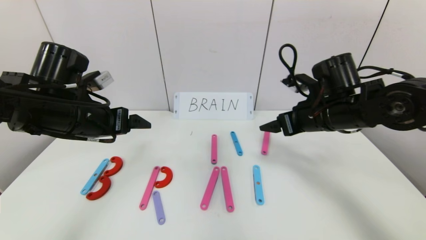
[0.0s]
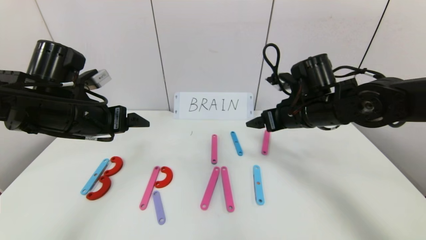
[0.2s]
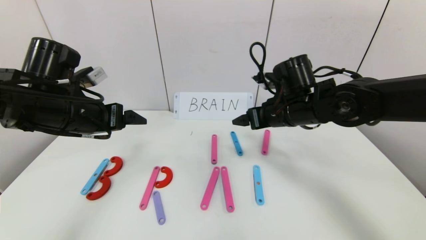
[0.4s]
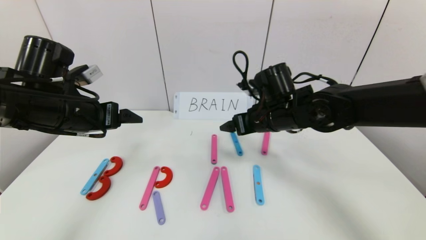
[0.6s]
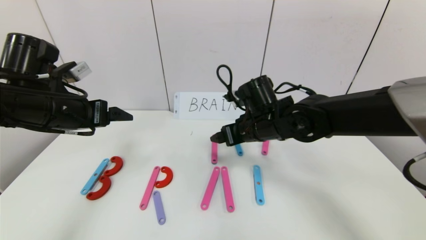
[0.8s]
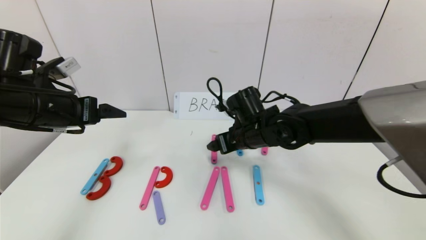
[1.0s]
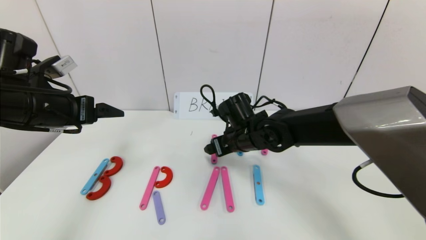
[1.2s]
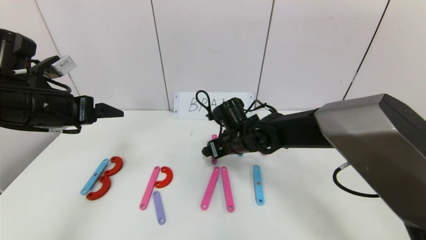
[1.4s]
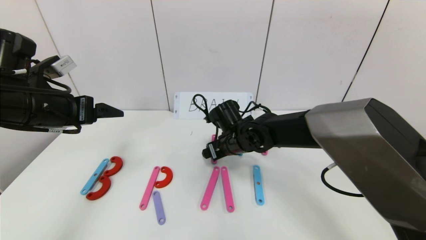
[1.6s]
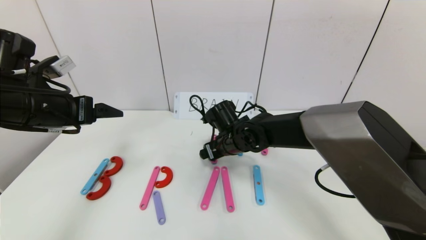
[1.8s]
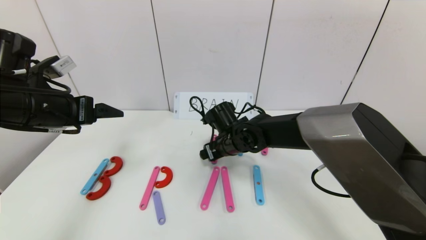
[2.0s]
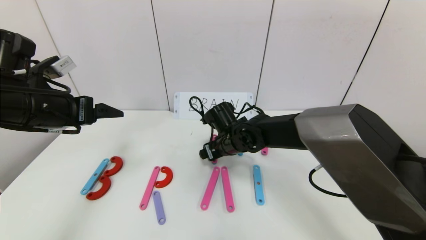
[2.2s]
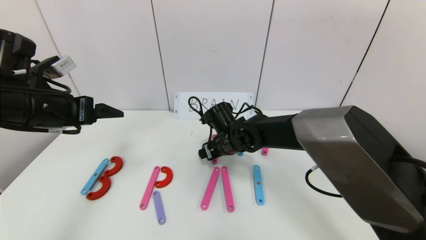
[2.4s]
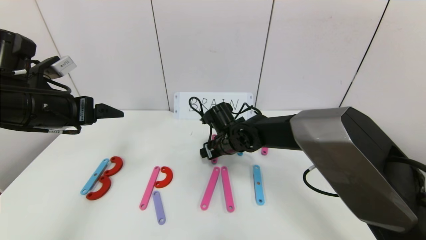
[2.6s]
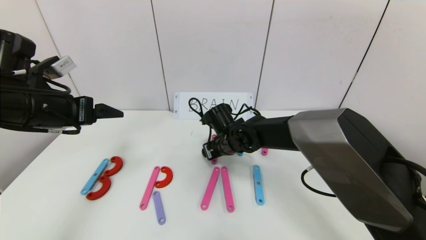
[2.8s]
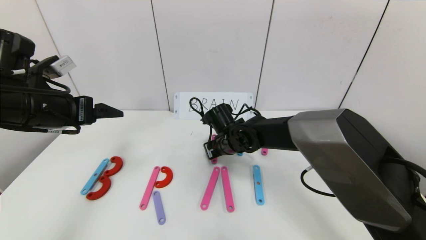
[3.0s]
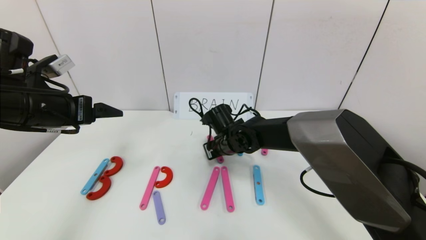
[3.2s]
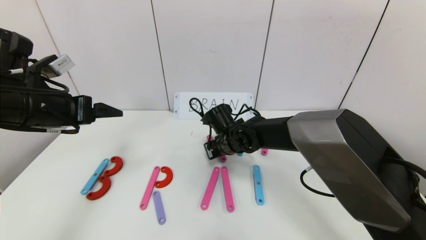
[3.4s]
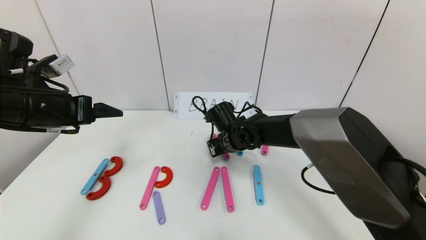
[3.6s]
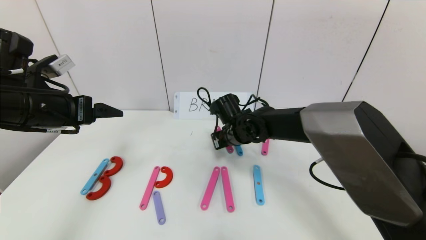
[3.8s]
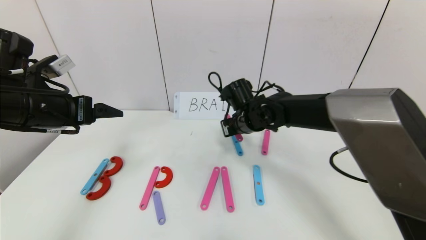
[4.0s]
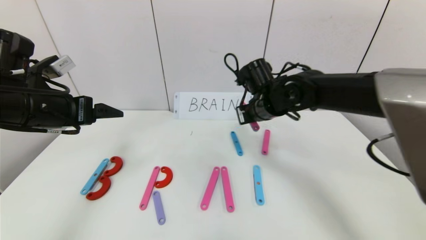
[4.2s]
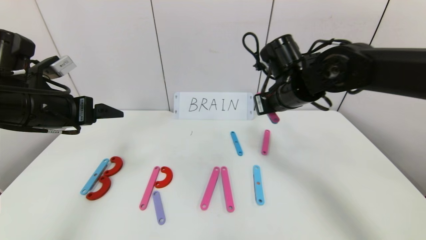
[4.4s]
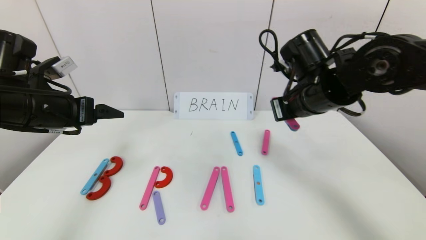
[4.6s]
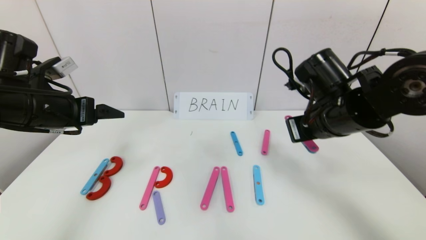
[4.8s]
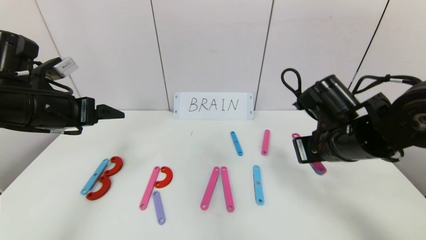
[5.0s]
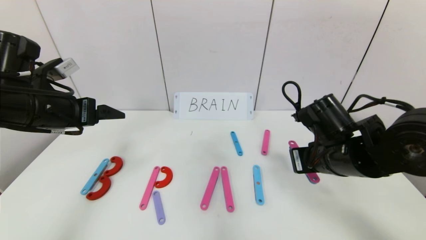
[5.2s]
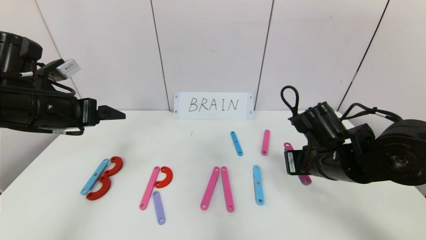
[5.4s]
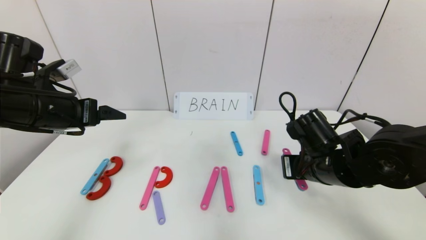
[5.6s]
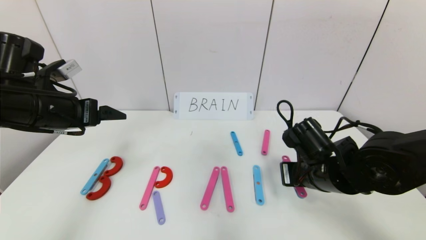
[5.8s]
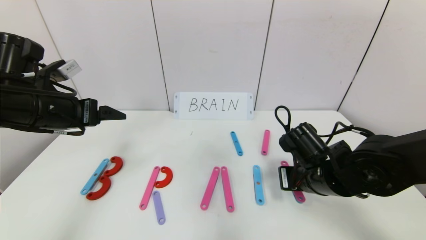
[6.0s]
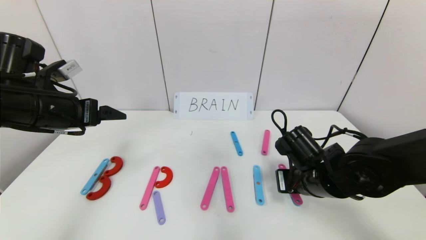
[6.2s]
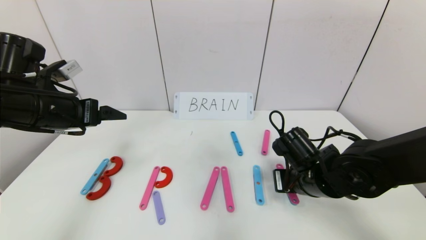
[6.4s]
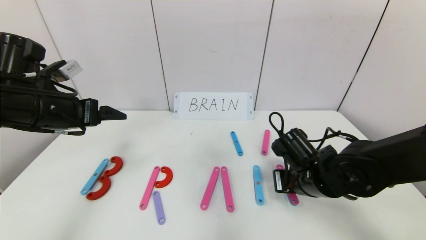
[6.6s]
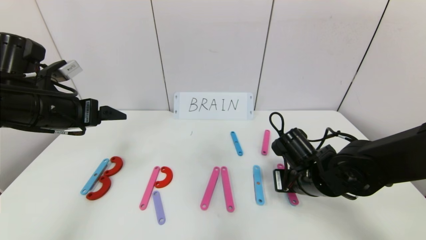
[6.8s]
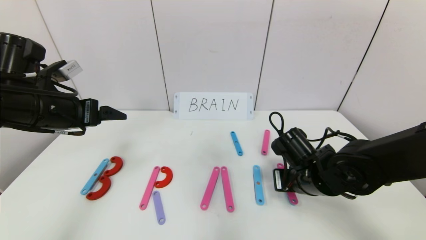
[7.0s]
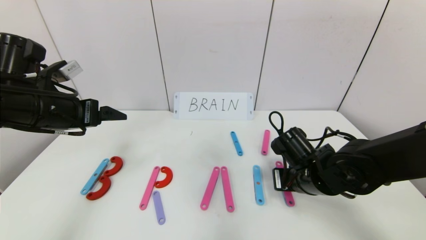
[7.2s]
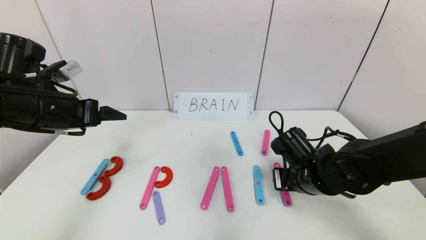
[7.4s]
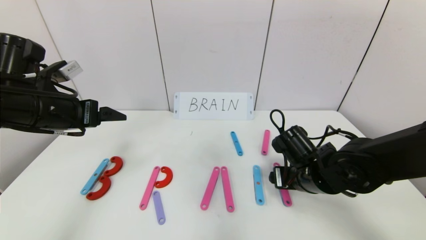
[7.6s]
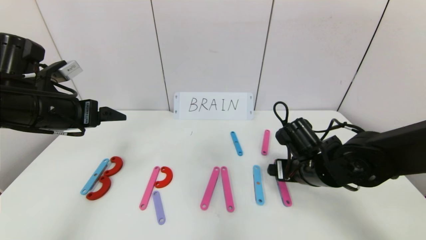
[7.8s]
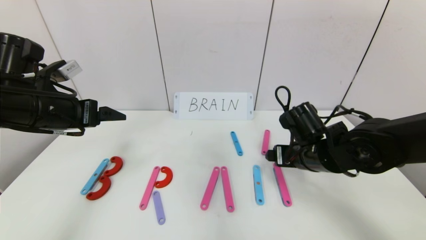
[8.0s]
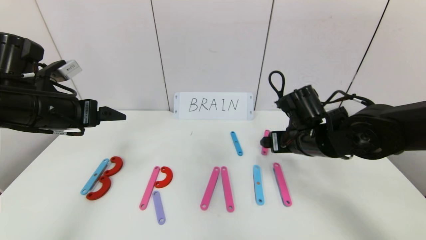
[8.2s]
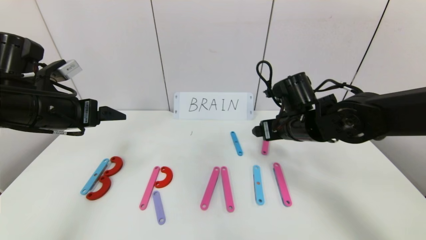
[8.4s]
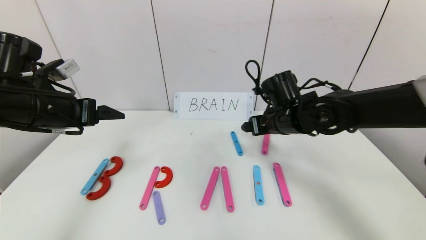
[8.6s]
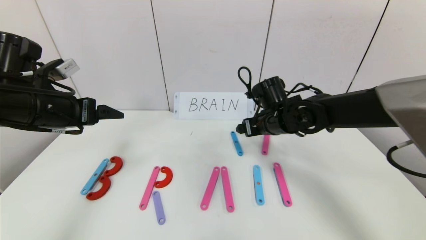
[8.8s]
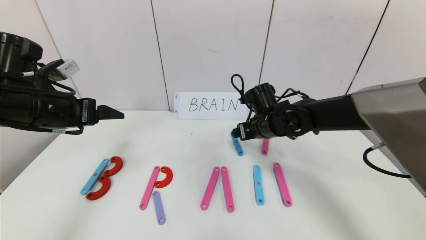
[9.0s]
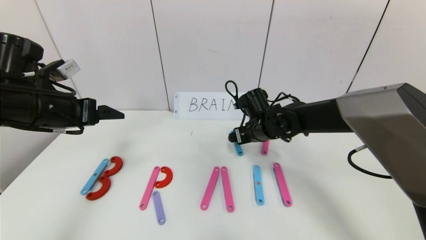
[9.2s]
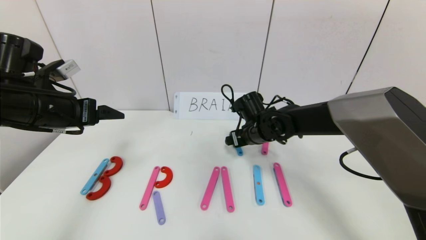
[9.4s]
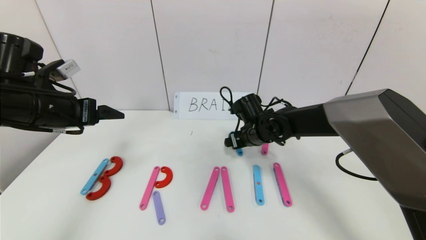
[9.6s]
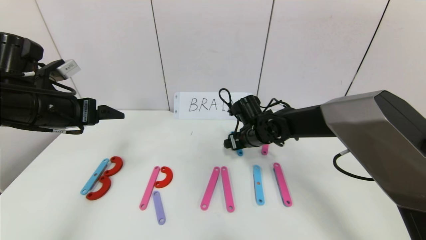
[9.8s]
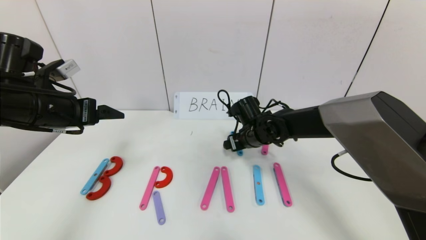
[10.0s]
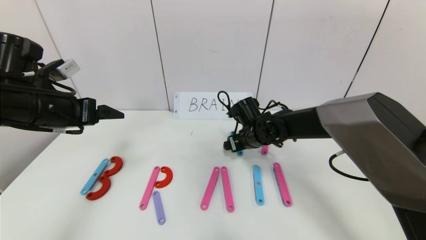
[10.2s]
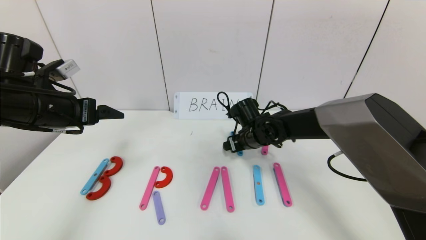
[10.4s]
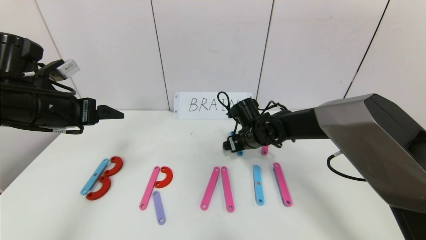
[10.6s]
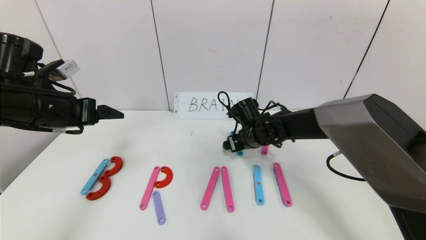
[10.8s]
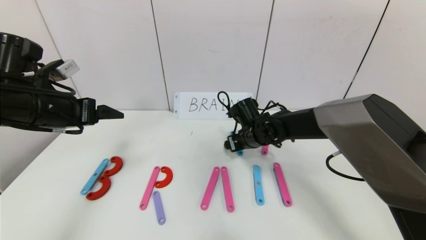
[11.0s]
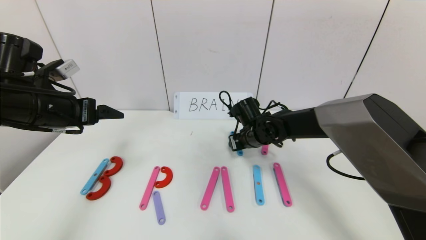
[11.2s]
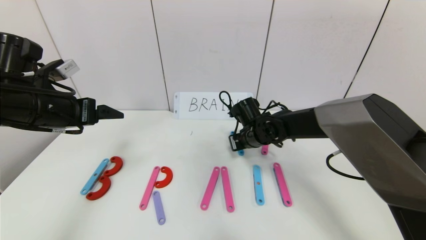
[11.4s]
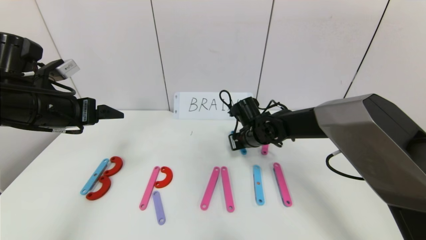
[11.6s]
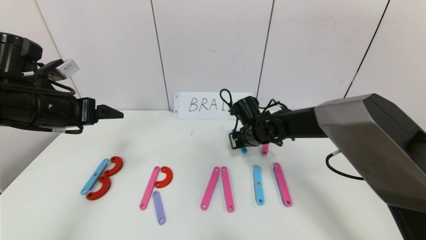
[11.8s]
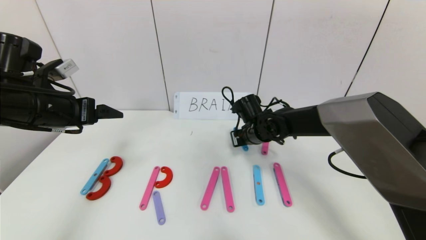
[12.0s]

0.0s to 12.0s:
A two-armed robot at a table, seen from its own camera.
Task of the whole recording: rearrange the word baai as brain.
0.0s to 1.6s: The right gripper moves to the left and downward, roughly 20 cm, while the left gripper ends up some 5 cm from where it was.
1.6s to 3.0s: The right gripper closes up.
3.0s to 4.4s: The right gripper goes some 20 cm upward and to the right, and closes its fingers.
4.4s to 6.0s: The right gripper travels downward and backward by some 15 cm.
6.0s to 7.6s: The right gripper opens up.
7.6s to 9.0s: The right gripper moves forward and to the left, some 15 cm.
9.0s to 10.4s: The right gripper changes place by roughly 5 cm.
10.4s to 12.0s: The right gripper closes.

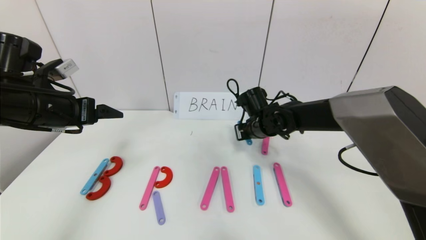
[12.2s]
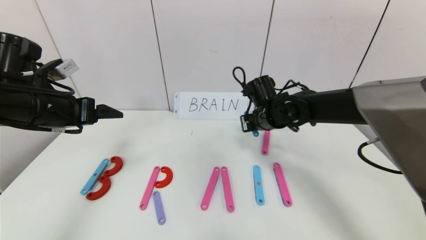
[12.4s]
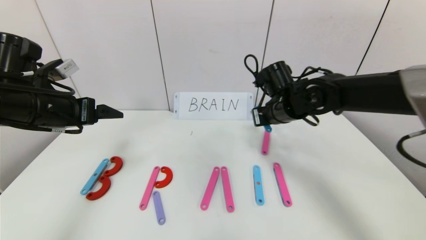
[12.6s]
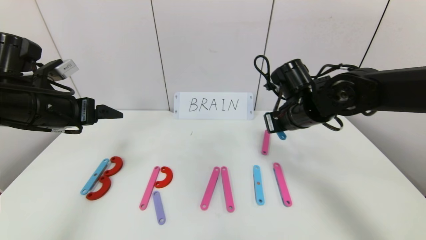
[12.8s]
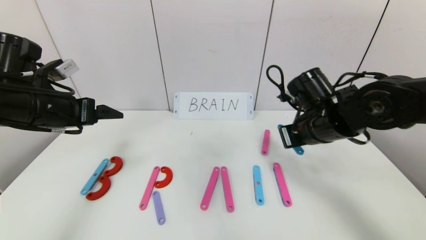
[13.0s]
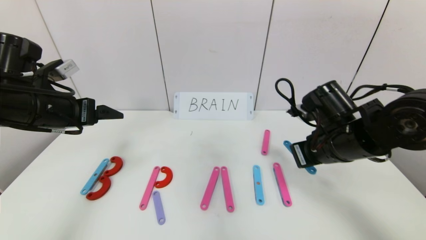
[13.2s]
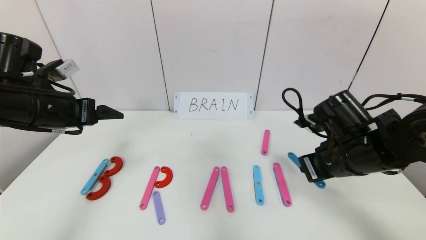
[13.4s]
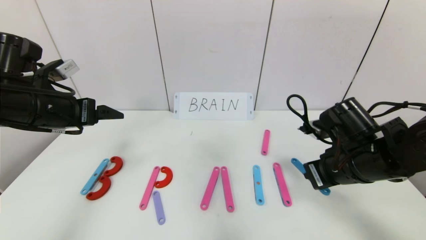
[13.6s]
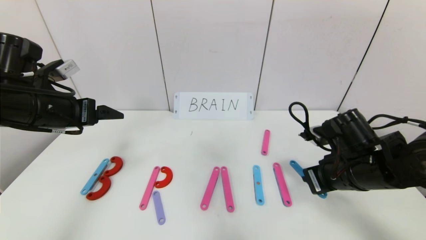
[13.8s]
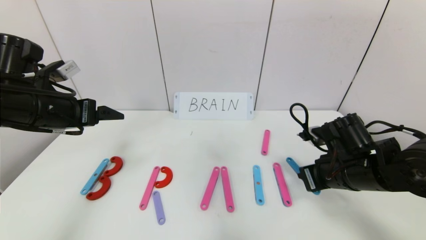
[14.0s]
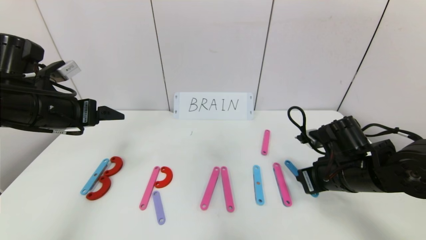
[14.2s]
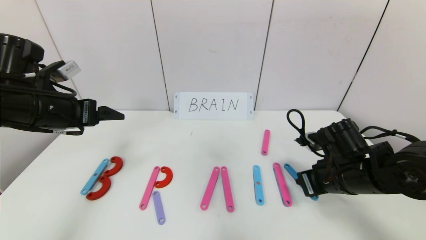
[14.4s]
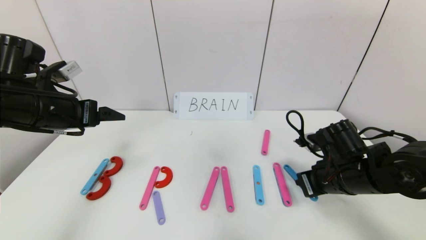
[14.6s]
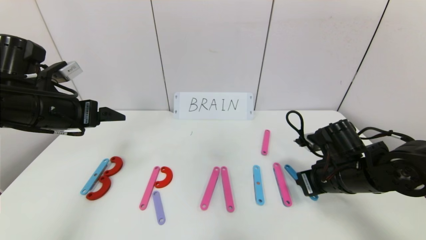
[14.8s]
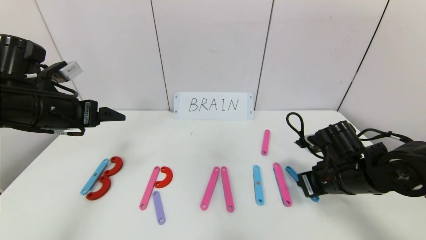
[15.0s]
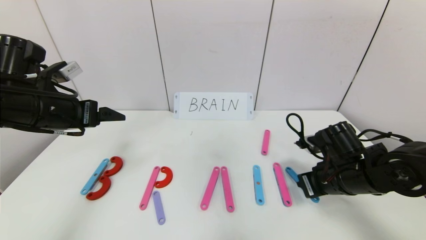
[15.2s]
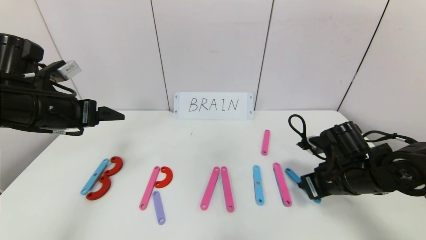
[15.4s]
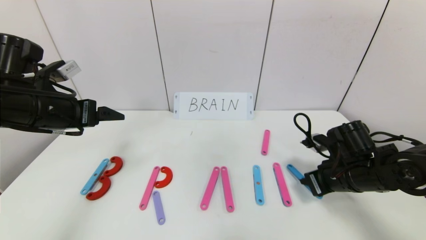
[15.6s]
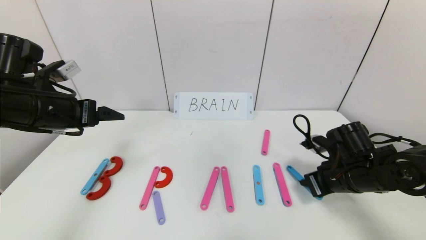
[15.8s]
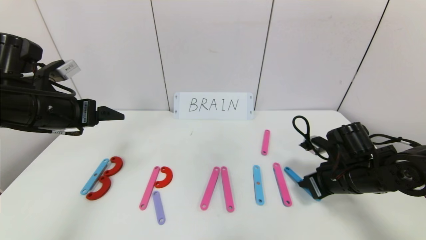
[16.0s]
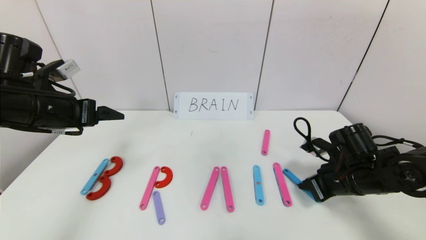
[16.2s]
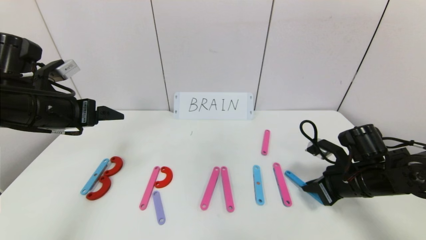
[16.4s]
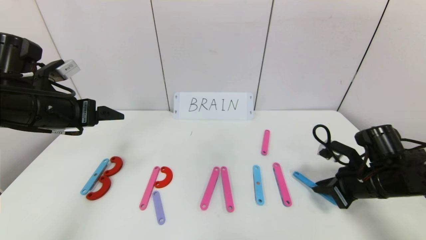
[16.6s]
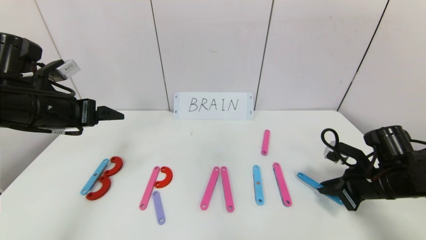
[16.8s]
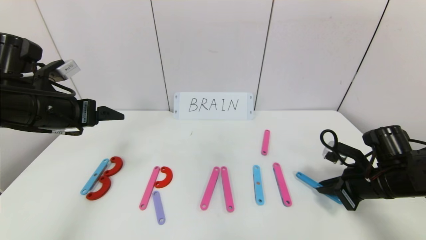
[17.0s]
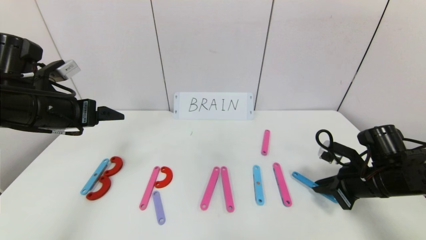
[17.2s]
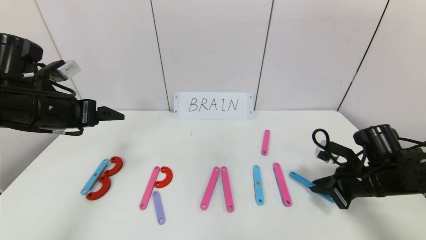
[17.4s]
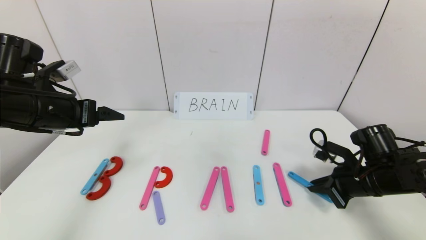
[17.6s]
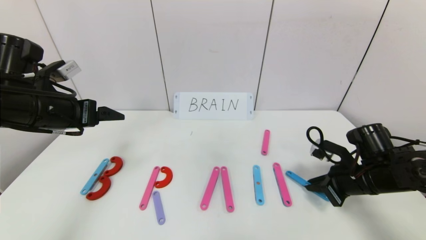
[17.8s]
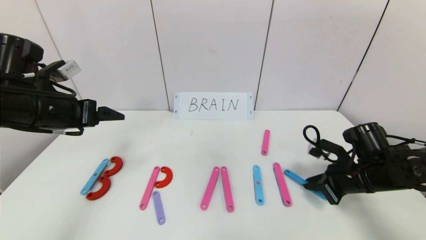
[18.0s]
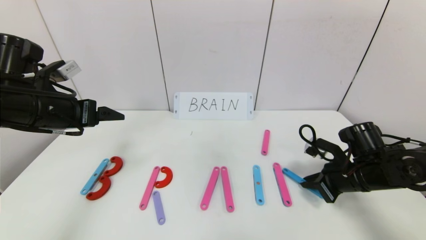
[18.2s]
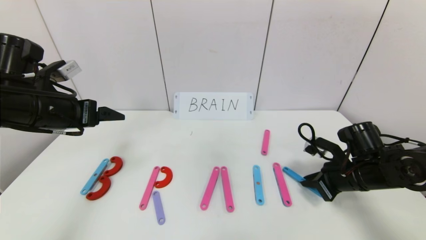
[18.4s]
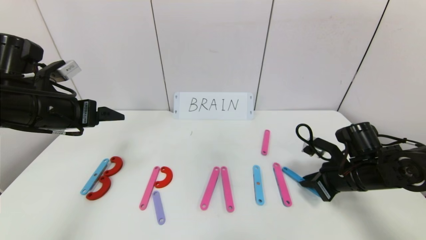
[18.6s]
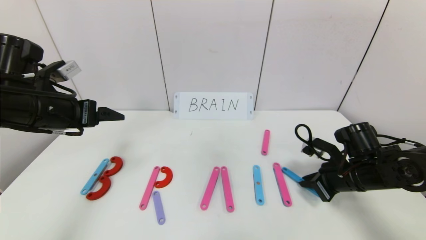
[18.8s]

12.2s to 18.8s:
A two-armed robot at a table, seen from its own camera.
Task of the whole recording: rearrange the word baai as brain.
12.2s to 13.8s: The right gripper is displaced backward and to the right by about 20 cm.
13.8s to 15.4s: There are only small adjustments of the grippers.
15.4s to 17.2s: The right gripper goes about 5 cm to the right.
17.2s to 18.8s: The grippers stay close to where they were, moving slightly.
